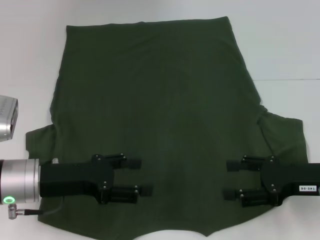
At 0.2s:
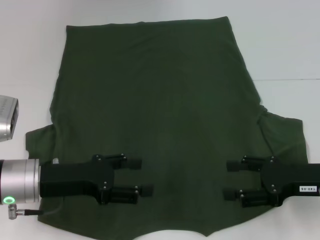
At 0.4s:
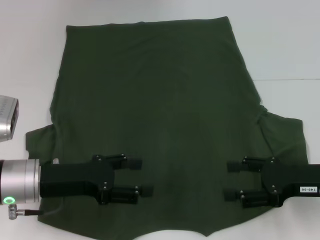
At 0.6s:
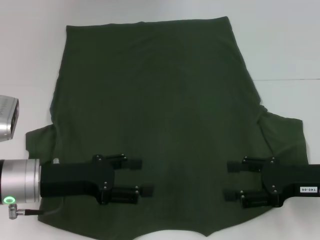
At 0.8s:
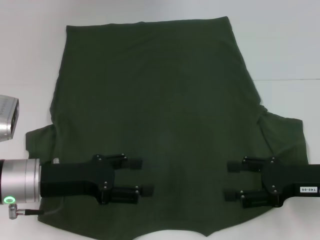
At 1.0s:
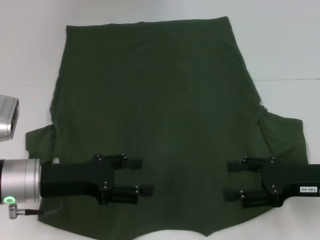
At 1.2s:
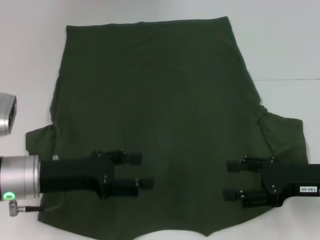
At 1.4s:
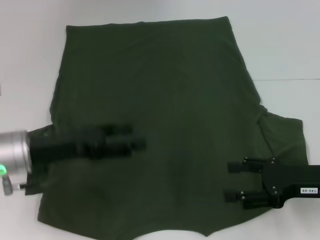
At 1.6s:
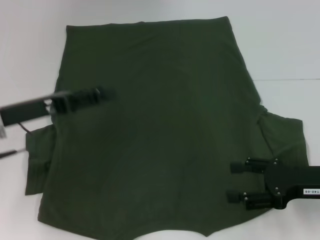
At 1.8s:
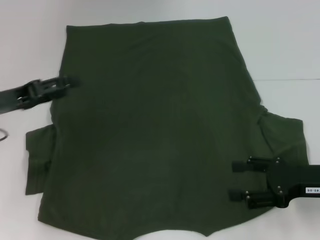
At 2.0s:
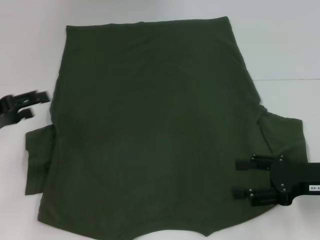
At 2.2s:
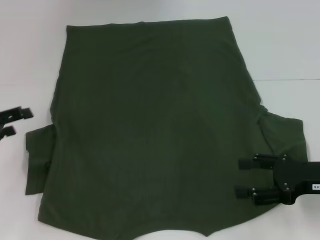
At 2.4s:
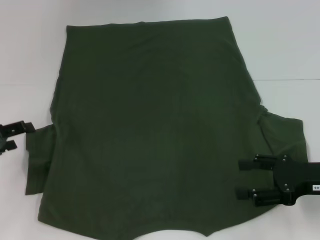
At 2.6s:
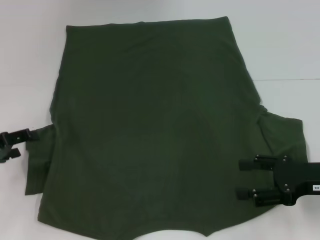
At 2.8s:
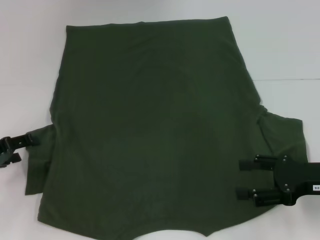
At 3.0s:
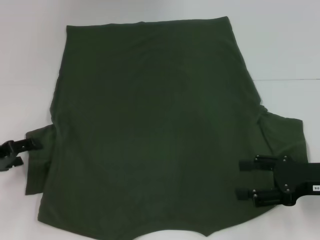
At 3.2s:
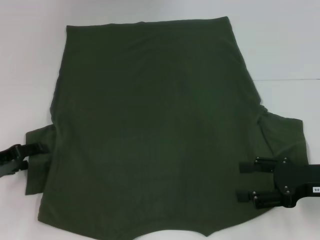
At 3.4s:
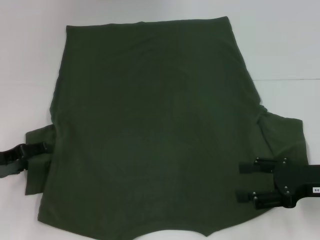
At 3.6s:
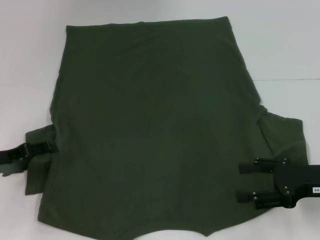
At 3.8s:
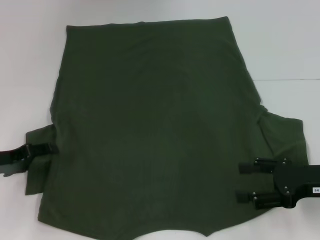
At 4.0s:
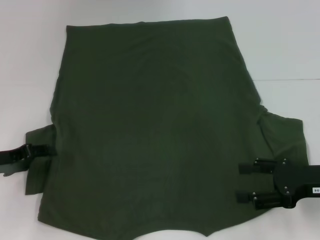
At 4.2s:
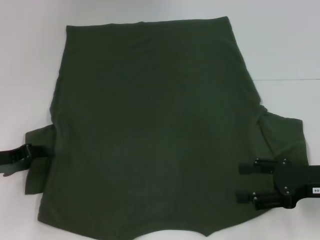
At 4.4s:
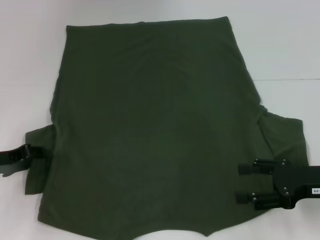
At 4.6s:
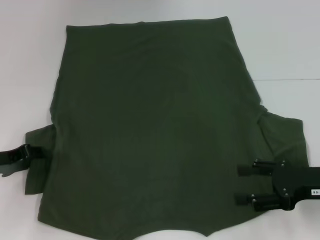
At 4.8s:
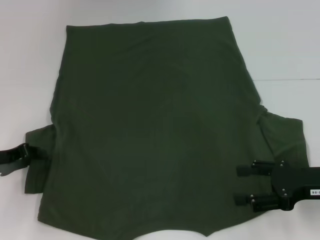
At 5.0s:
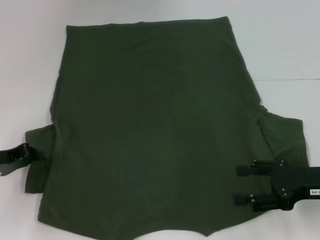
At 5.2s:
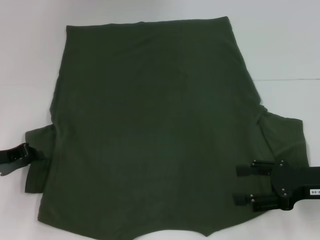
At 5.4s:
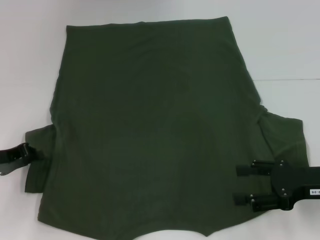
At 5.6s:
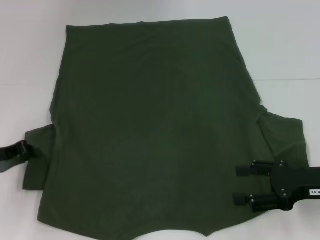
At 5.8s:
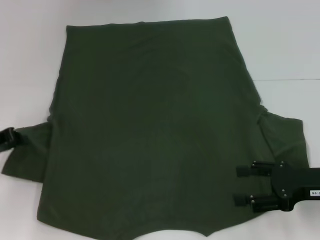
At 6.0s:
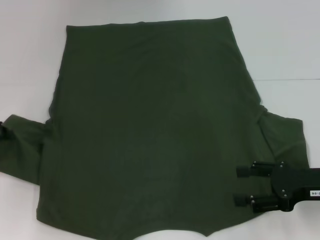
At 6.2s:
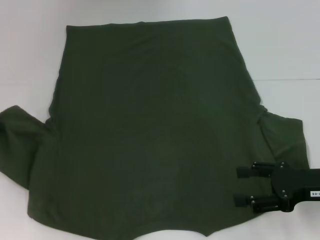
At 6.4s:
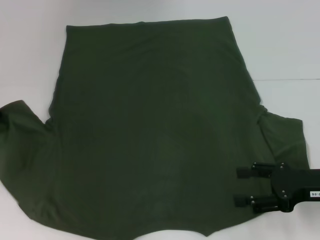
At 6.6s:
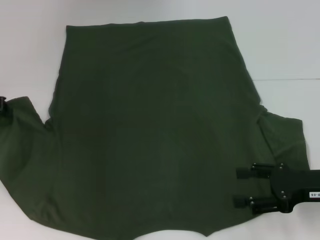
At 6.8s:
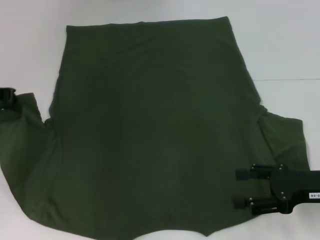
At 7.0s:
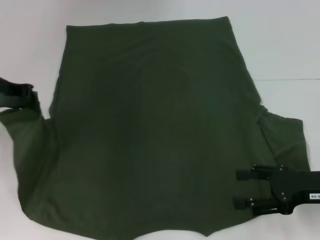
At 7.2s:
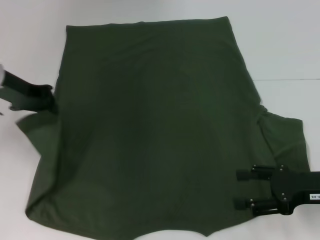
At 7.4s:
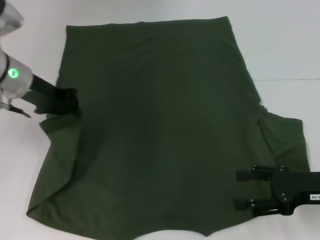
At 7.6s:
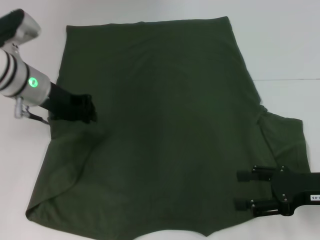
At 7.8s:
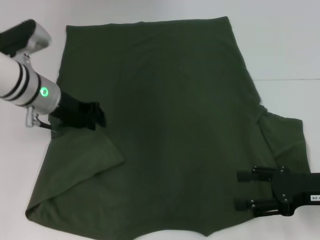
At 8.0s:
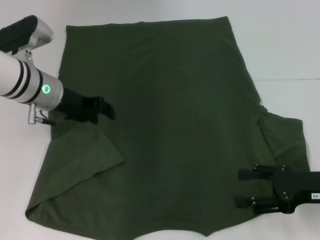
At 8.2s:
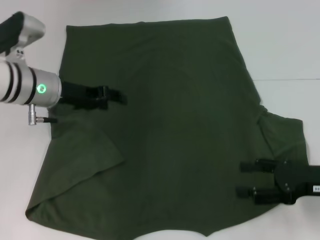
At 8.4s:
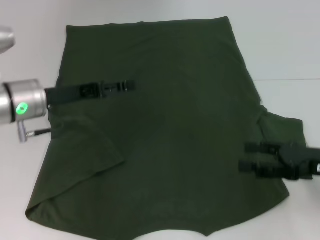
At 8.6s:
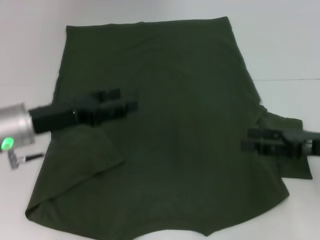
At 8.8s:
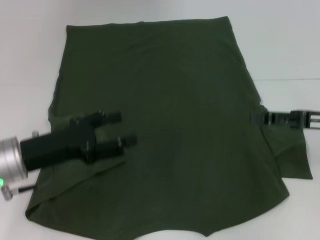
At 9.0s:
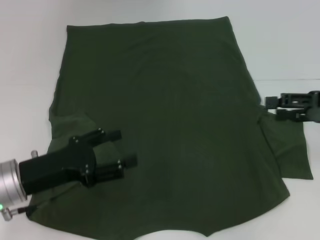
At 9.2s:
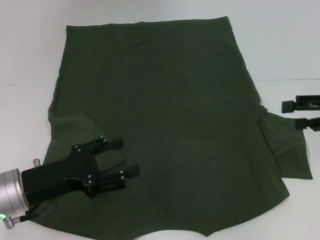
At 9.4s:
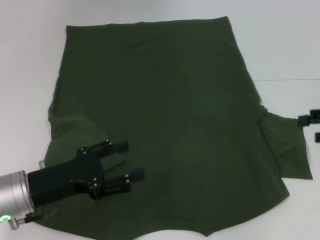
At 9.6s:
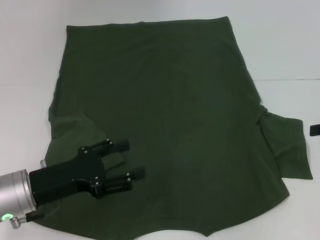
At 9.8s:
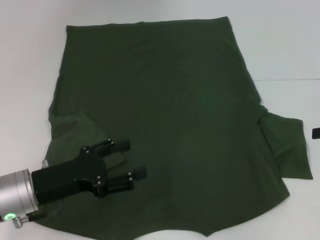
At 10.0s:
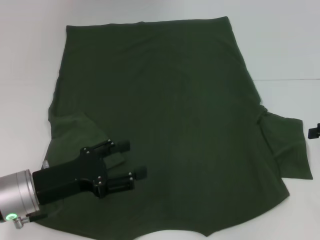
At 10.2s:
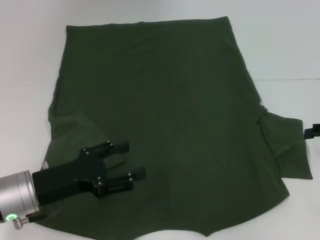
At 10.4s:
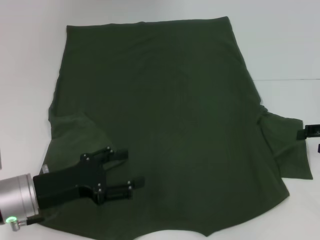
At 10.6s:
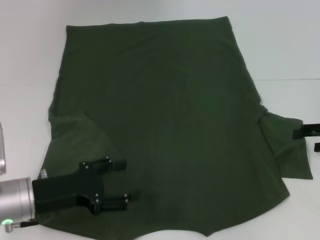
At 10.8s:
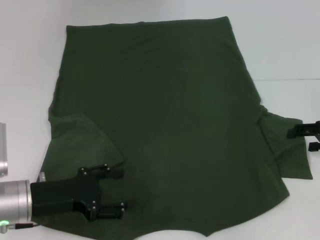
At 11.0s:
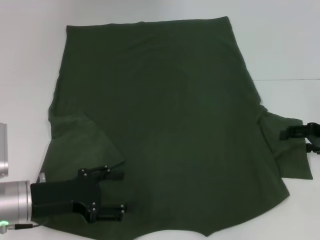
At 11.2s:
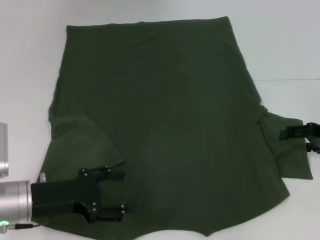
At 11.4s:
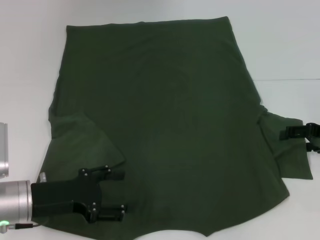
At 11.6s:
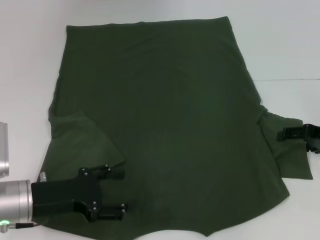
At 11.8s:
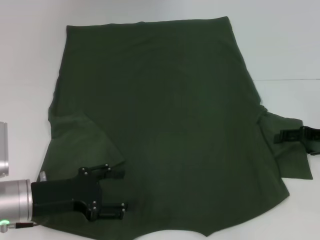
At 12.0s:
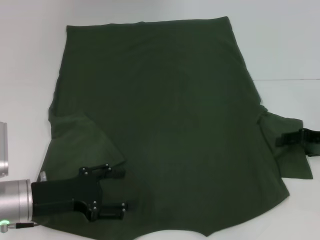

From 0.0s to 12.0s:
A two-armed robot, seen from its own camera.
Step, from 0.0s to 8.2s: Fold the bottom left sleeve with your left hand.
From 0.0s to 1.6s: The left gripper moves approximately 5 cm.
From 1.6s to 3.0s: The left gripper heads to the left and downward, covering some 10 cm.
From 3.0s to 4.4s: The left gripper closes.
From 4.4s to 6.0s: The left gripper ends up about 5 cm from where it was, and closes.
From 6.0s to 7.6s: The left gripper travels to the right, forward and upward by roughly 15 cm.
From 7.6s to 9.0s: The left gripper goes some 20 cm backward and downward, and opens, while the right gripper heads upward and forward, covering some 10 cm.
From 9.0s to 10.4s: The right gripper changes place by approximately 5 cm.
From 10.4s to 12.0s: There are only small adjustments of the grippers.

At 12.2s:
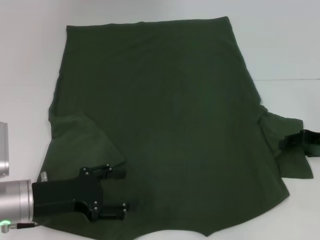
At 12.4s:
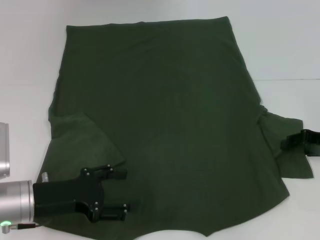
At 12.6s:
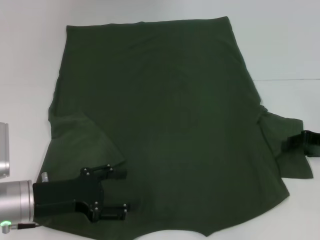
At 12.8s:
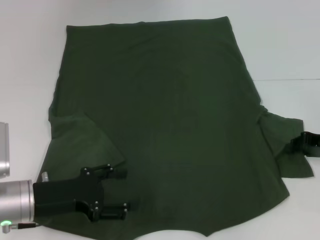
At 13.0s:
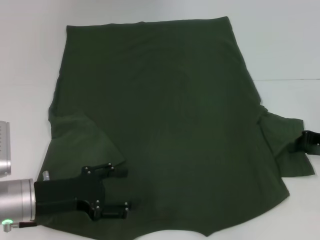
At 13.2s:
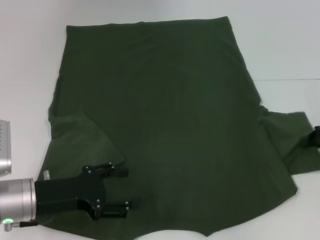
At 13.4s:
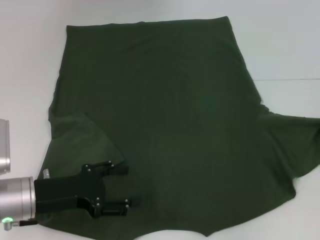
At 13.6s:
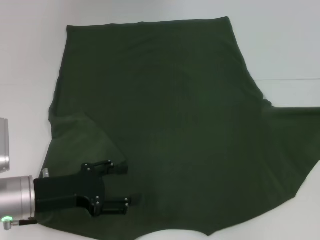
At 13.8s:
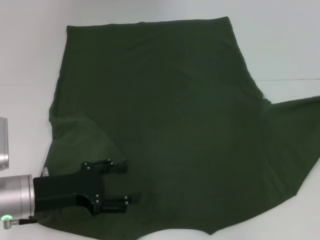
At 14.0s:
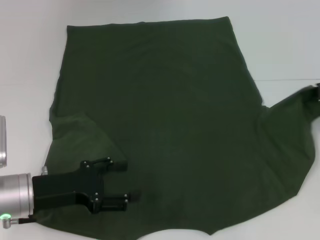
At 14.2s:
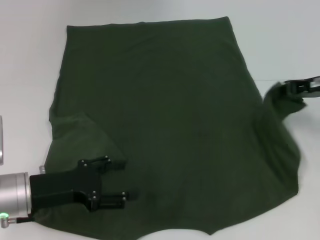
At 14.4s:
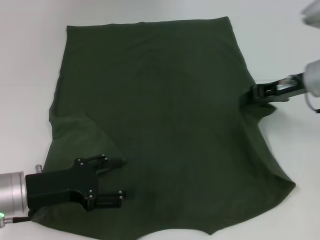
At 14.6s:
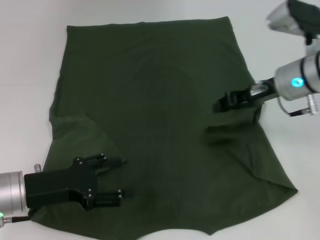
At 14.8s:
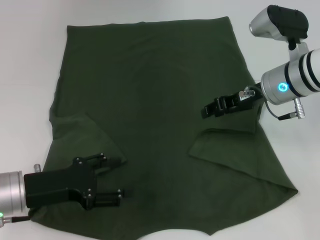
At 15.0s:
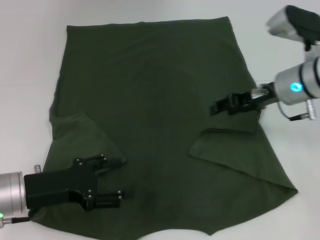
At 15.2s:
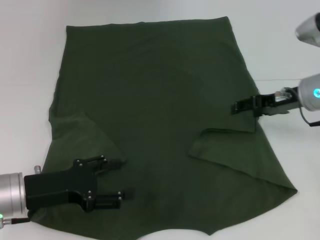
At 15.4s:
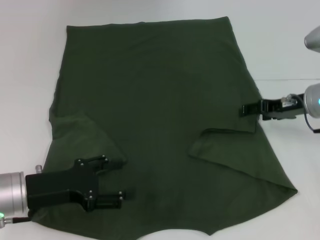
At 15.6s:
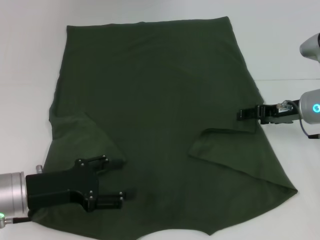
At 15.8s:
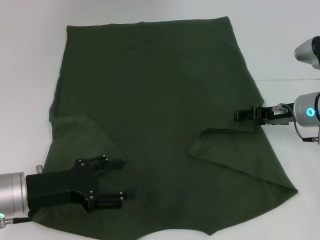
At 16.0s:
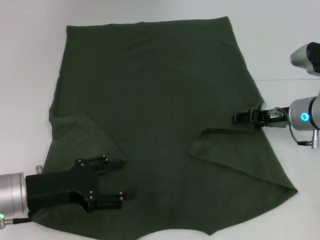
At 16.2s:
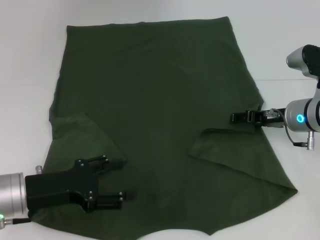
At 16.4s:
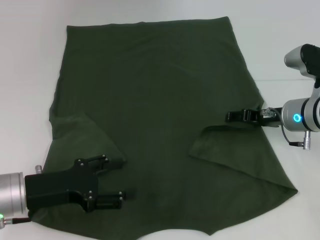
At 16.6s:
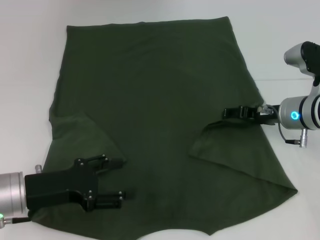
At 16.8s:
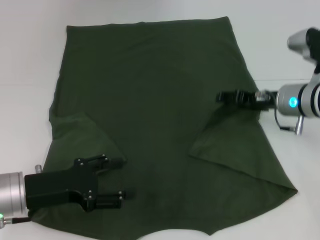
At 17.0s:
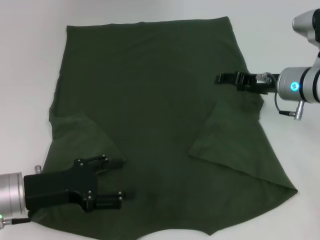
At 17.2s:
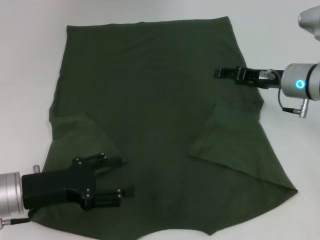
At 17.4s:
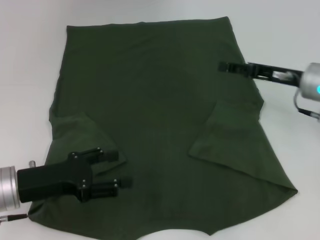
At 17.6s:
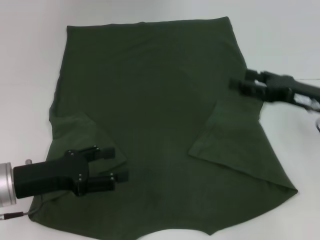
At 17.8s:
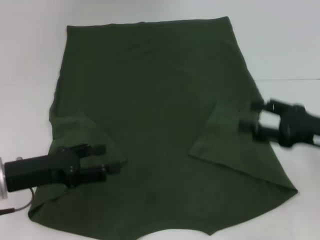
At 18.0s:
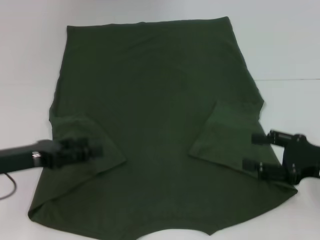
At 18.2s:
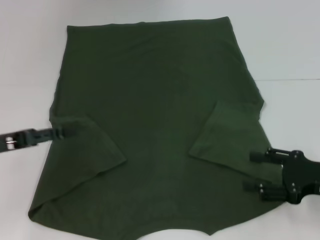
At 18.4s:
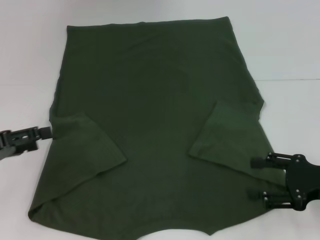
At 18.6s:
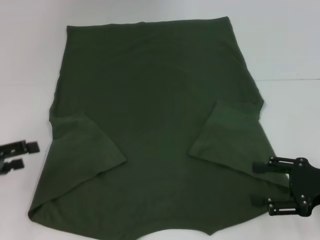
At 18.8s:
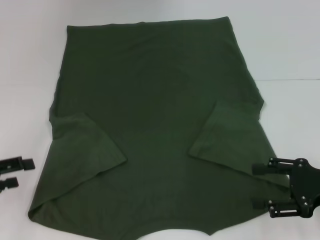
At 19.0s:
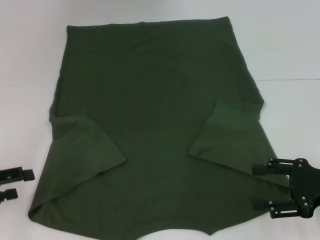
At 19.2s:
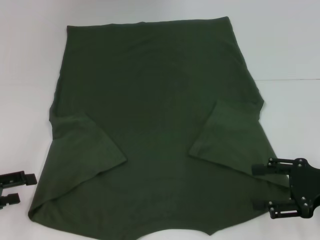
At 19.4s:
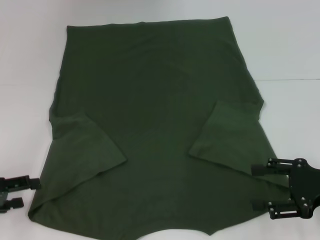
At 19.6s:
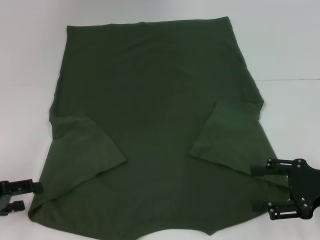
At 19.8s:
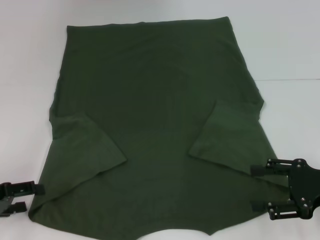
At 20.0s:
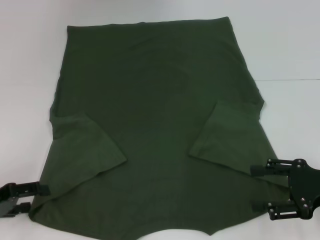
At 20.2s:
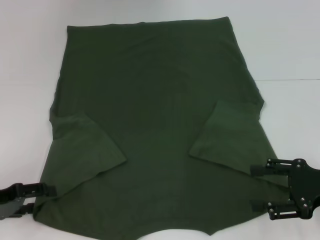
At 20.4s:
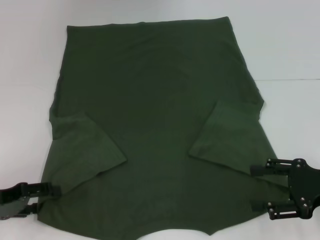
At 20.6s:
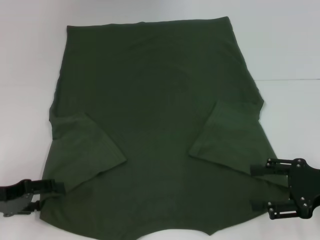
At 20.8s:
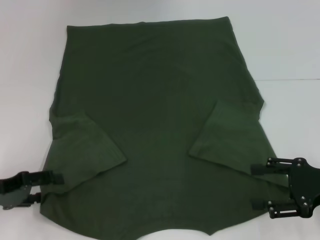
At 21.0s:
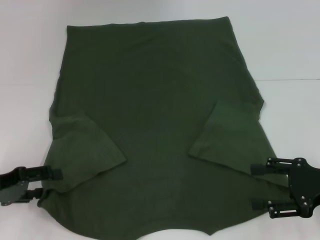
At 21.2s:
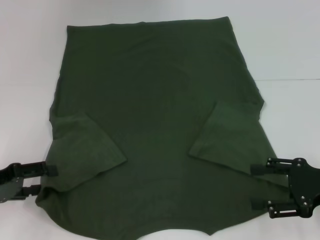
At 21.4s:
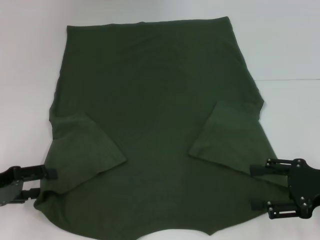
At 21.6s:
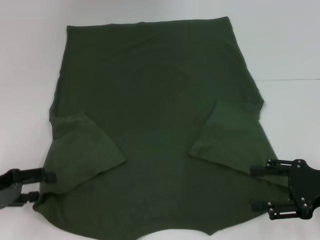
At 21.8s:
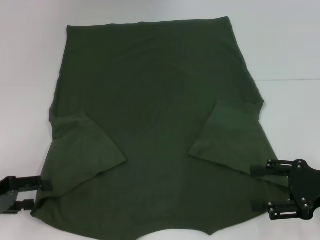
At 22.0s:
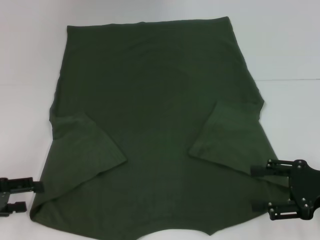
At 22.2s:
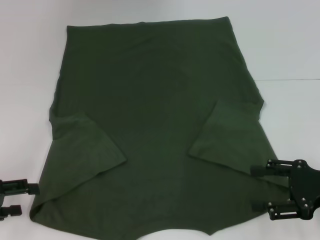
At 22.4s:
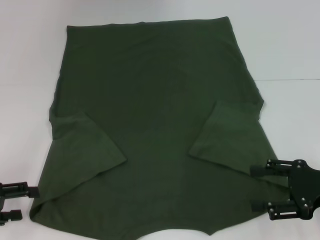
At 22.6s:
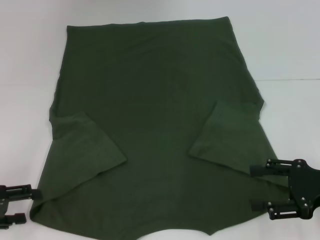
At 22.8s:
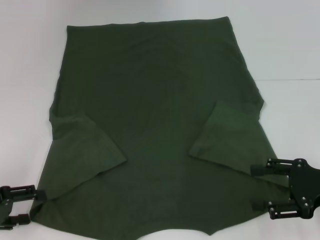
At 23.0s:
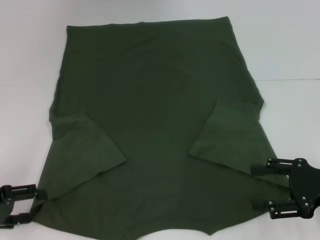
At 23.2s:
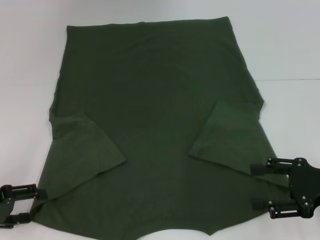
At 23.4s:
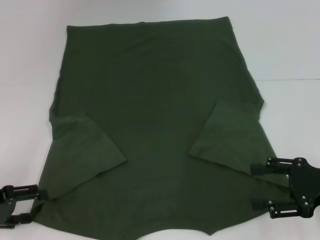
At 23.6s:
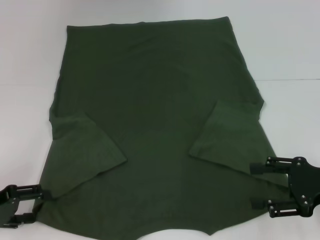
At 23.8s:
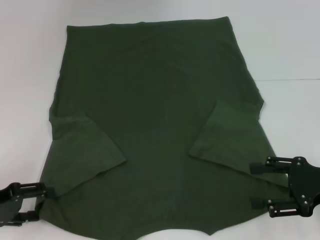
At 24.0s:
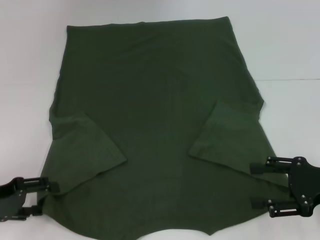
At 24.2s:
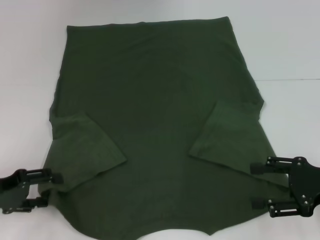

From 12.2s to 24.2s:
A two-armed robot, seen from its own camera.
Step, from 12.2s to 17.2s: Fold the bottom right sleeve with your right hand.
From 12.2s to 13.8s: The right gripper moves upward, some 5 cm, and closes.
From 13.8s to 15.2s: The right gripper heads to the left, covering approximately 15 cm, and opens.
From 15.2s to 16.6s: The right gripper ends up approximately 5 cm from where it was.
From 16.6s to 18.2s: The right gripper is displaced backward and to the right by about 15 cm; the left gripper is displaced to the left and upward by about 10 cm.
From 18.2s to 19.8s: The left gripper moves downward, approximately 5 cm.
From 19.8s to 24.2s: The grippers make only small movements.
